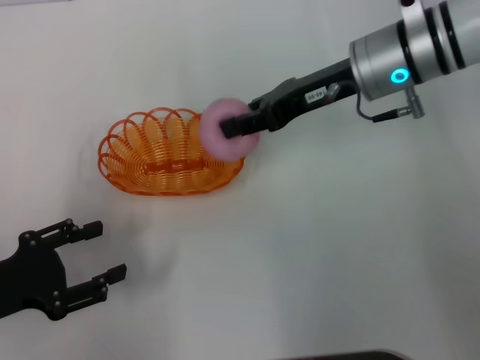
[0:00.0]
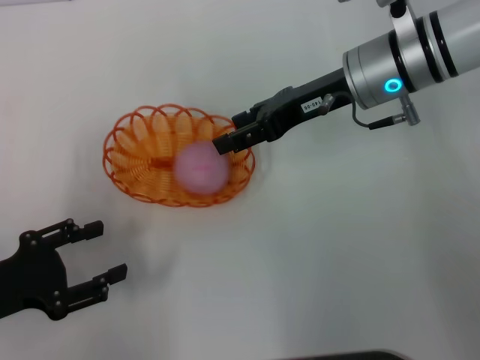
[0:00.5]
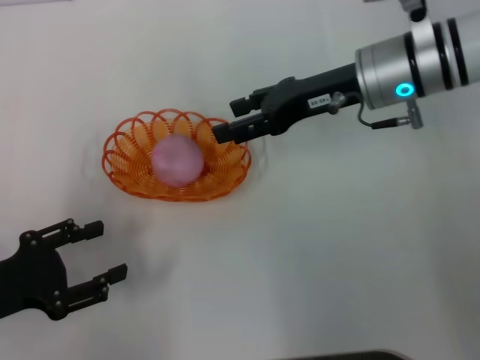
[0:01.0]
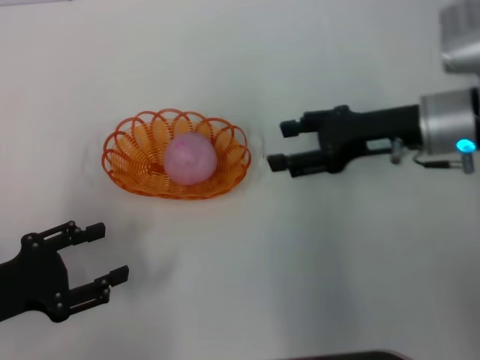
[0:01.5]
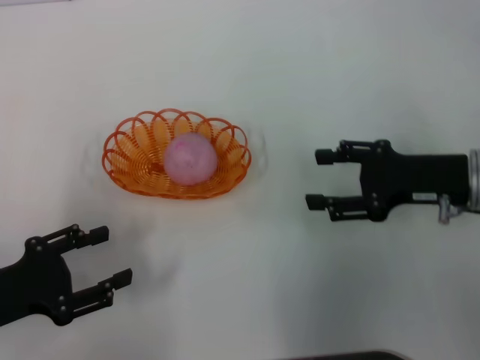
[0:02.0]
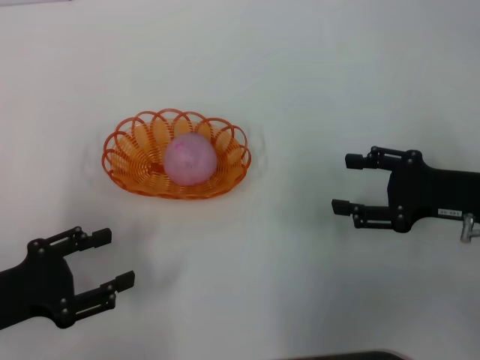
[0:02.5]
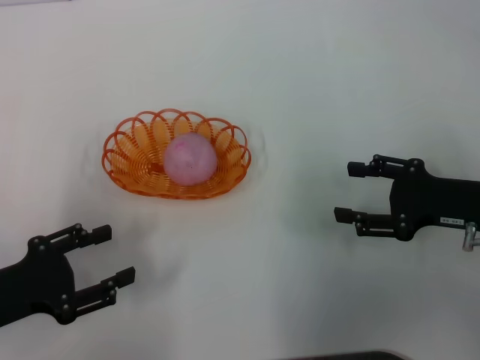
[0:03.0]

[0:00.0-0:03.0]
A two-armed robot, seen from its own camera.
0:00.0 to 0:01.5: The right gripper shifts approximately 10 cm to the right and backward, and opens its fingers.
0:01.5 to 0:03.0: The right gripper goes roughly 10 cm backward and to the right.

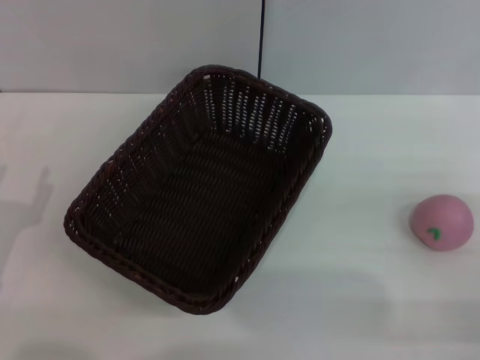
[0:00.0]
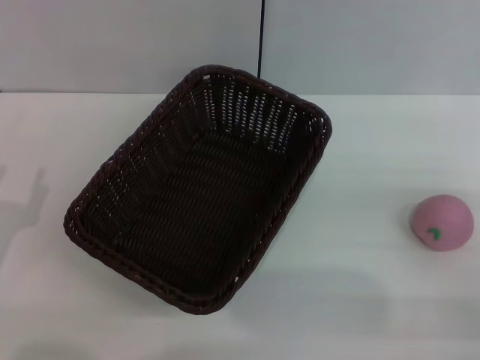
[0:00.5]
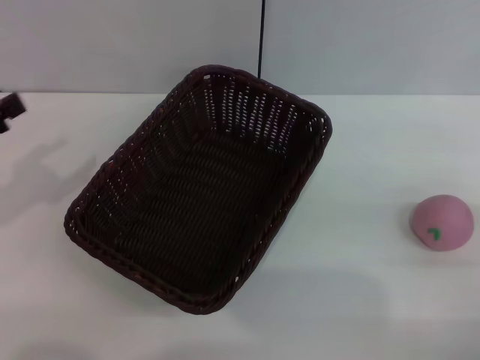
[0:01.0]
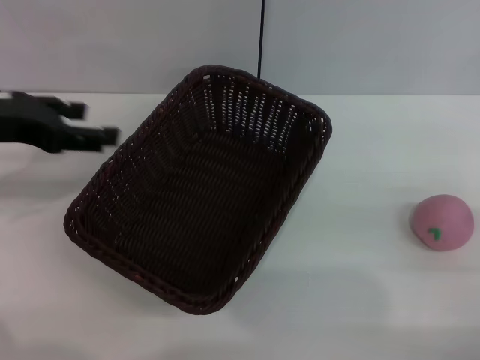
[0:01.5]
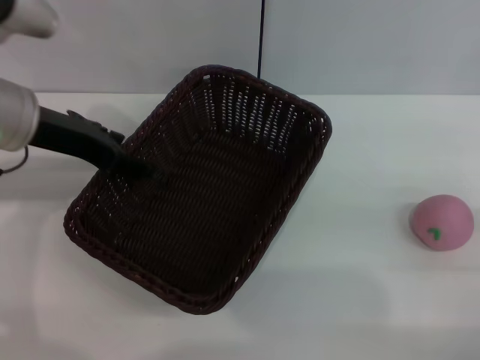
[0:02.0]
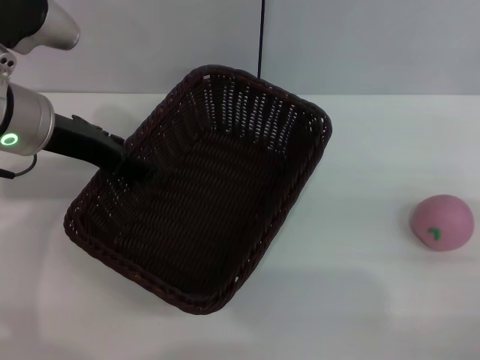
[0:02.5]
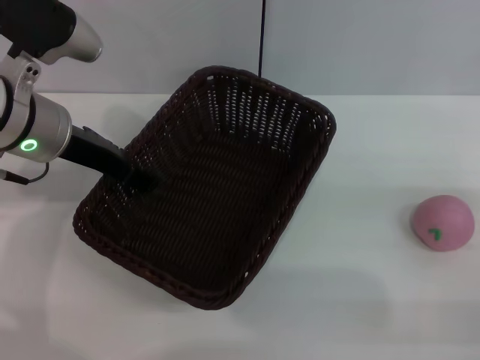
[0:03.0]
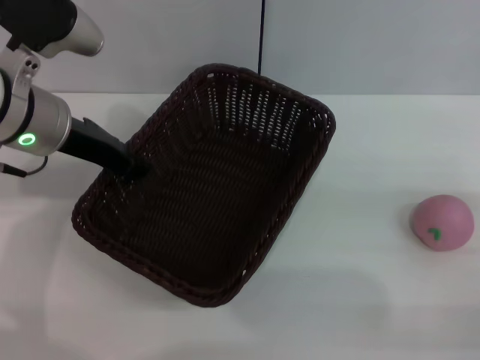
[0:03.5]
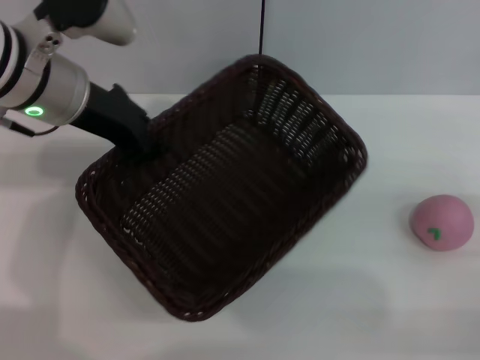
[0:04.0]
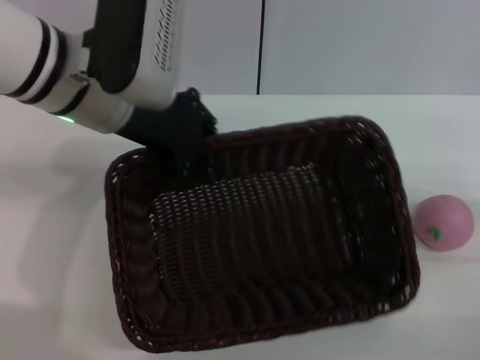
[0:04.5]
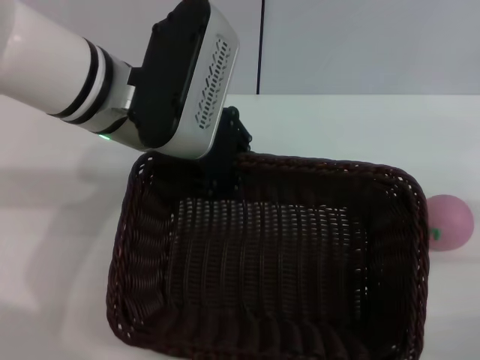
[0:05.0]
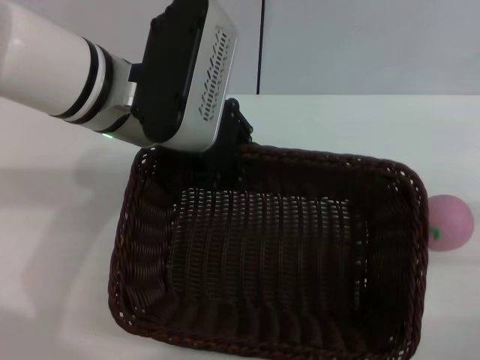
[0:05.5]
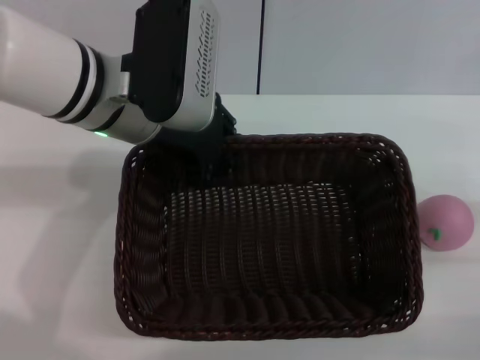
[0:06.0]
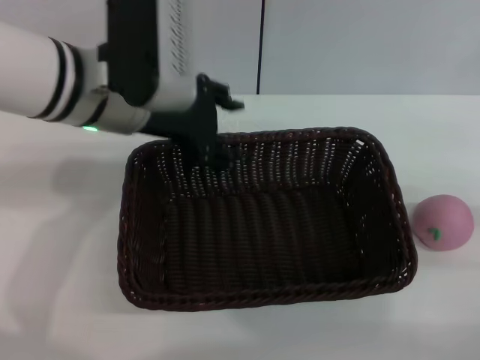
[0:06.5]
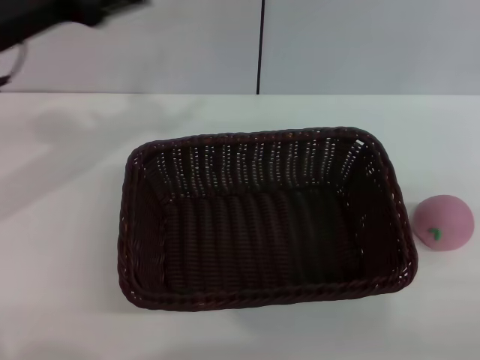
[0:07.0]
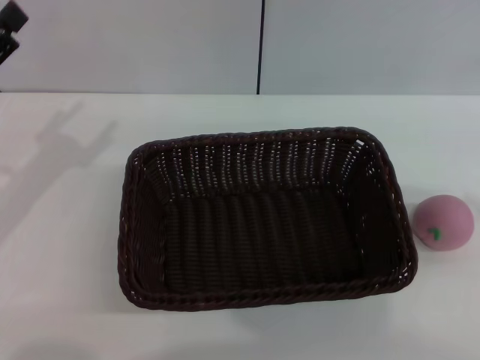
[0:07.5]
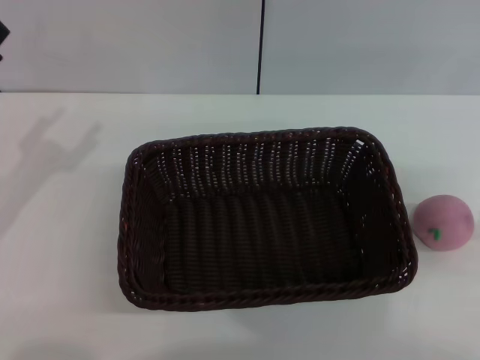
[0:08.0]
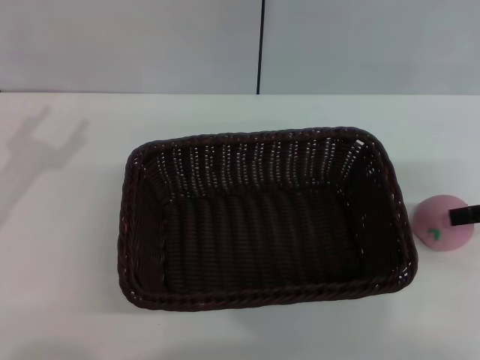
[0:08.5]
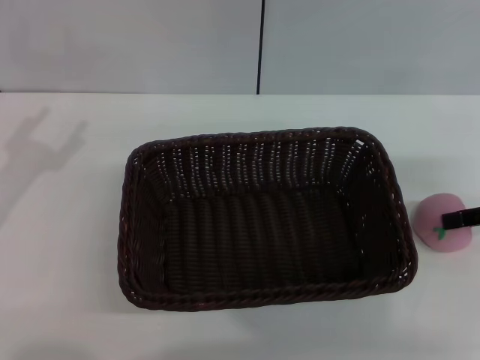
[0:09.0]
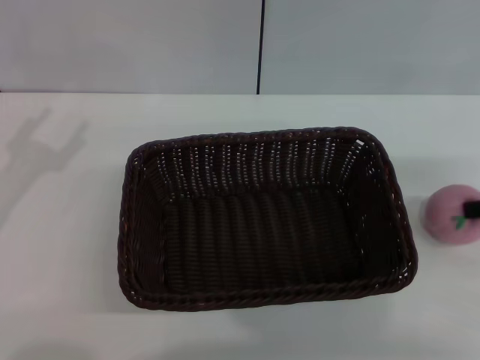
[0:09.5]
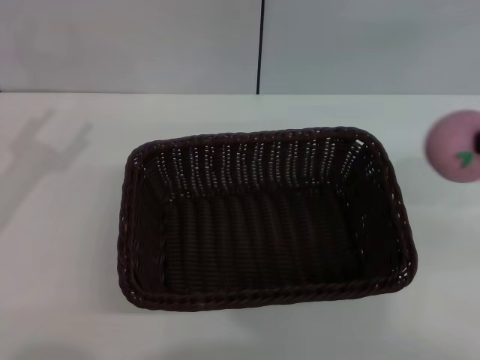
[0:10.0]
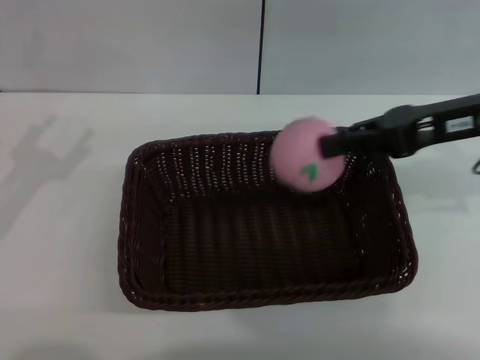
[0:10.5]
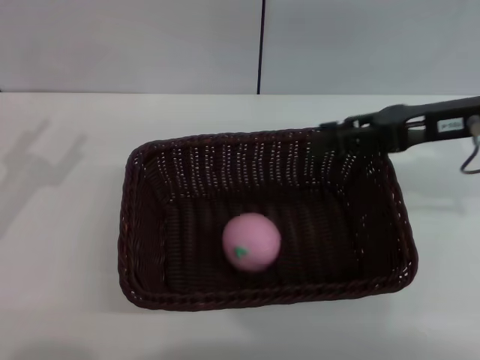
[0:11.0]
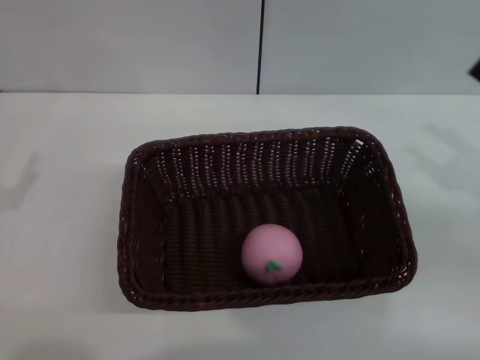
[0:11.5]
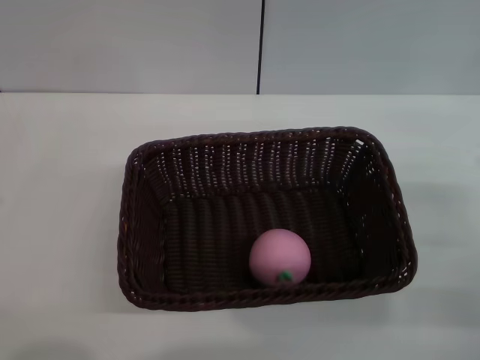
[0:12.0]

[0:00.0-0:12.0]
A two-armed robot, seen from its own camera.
Step, 0:00.0 to 0:03.5: Pick up the dark basket with the left gripper.
Step, 0:04.0 to 0:06.5: Place the dark basket in the center of view with the right gripper.
Step, 0:07.0 to 0:09.5: Pick up the peach with the left gripper.
0:00.0 to 0:02.0: The left gripper travels upward, forward and to the right by roughly 25 cm.
0:02.0 to 0:04.0: The left gripper closes its fingers.
0:04.0 to 0:06.0: The left gripper moves to the right, about 5 cm.
0:06.0 to 0:08.0: The left gripper moves to the left and backward, roughly 25 cm, and opens; the right gripper shifts roughly 15 cm upward and forward.
0:08.0 to 0:10.0: The right gripper reaches about 10 cm downward, then returns, and closes up.
0:10.0 to 0:12.0: The left gripper is displaced backward and downward by about 10 cm. The right gripper goes about 15 cm downward, and opens up.
